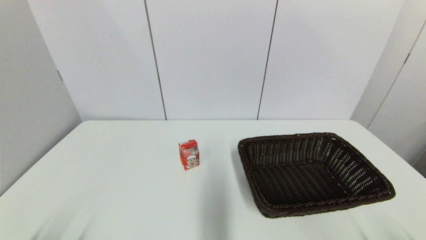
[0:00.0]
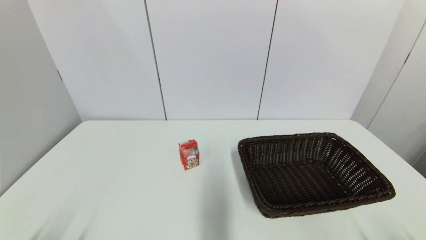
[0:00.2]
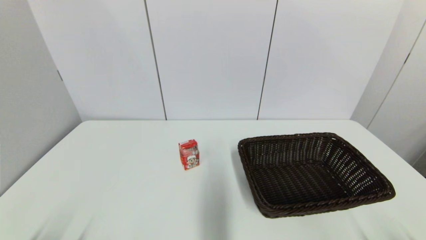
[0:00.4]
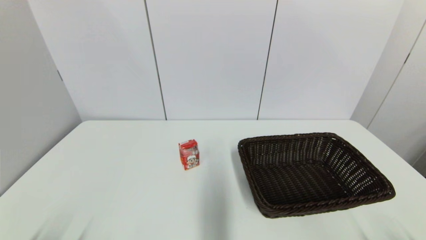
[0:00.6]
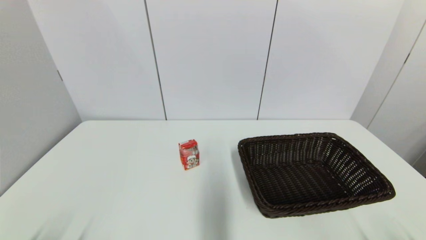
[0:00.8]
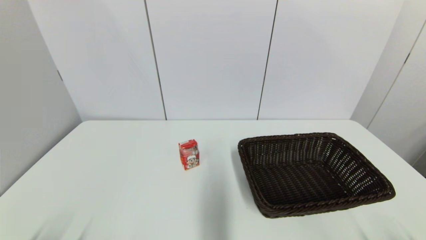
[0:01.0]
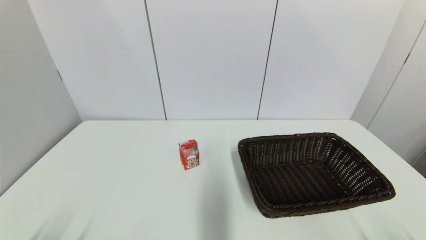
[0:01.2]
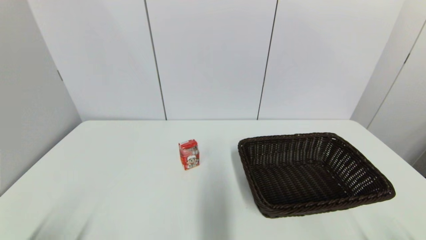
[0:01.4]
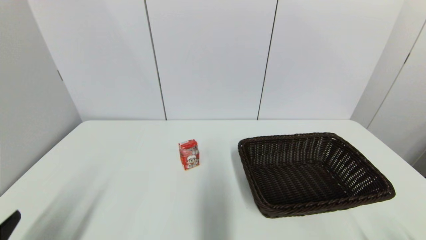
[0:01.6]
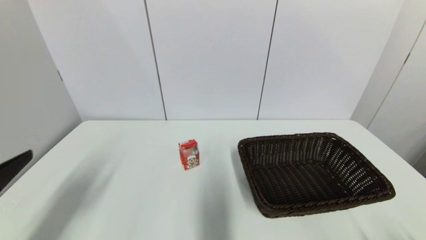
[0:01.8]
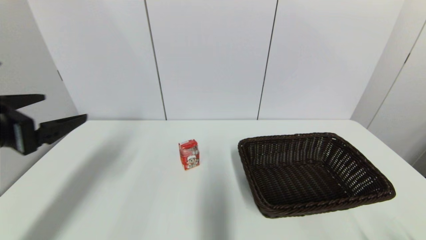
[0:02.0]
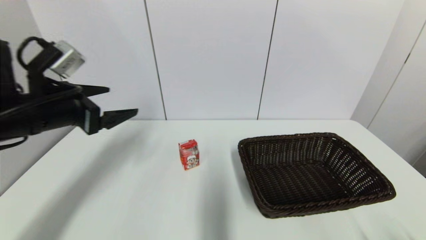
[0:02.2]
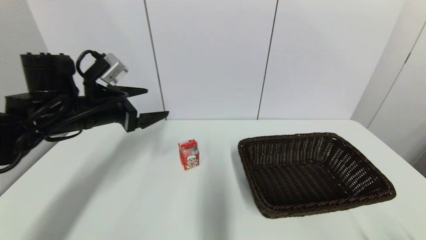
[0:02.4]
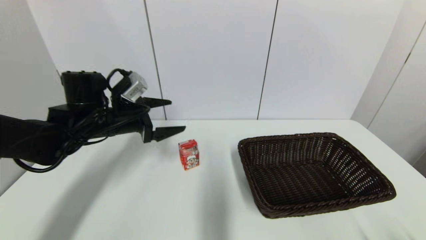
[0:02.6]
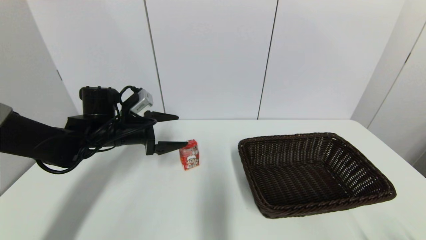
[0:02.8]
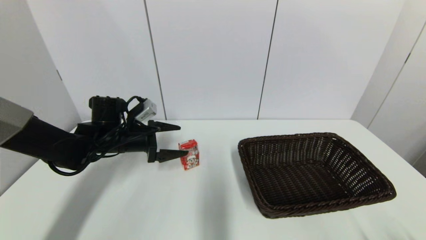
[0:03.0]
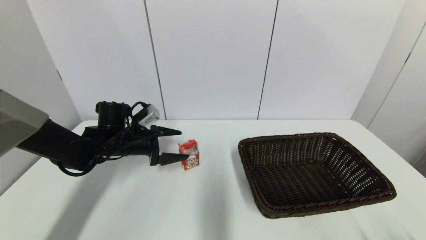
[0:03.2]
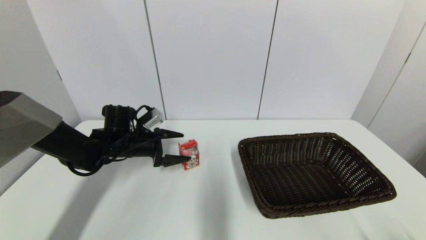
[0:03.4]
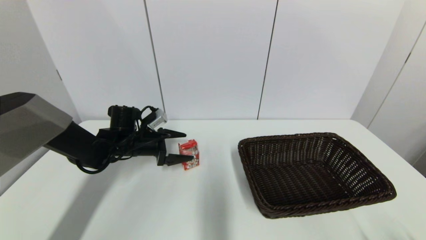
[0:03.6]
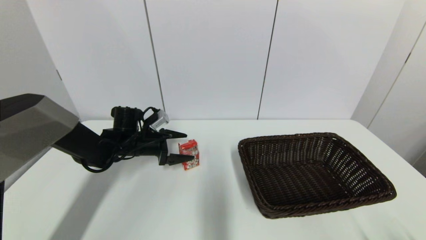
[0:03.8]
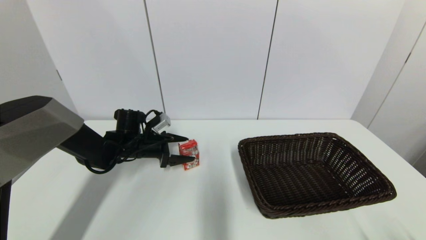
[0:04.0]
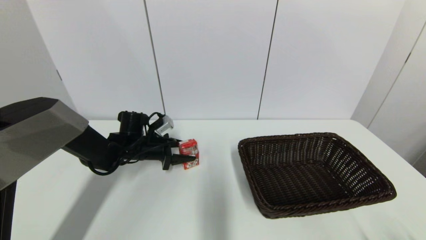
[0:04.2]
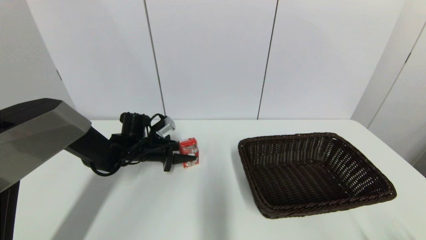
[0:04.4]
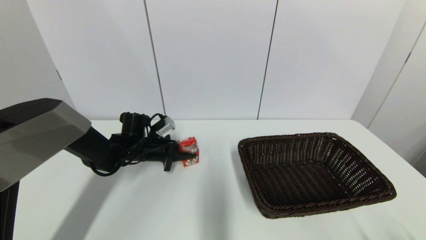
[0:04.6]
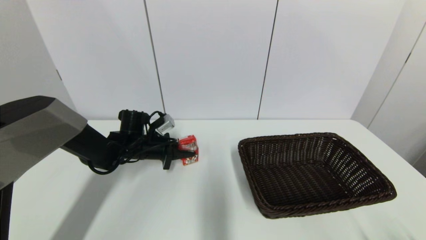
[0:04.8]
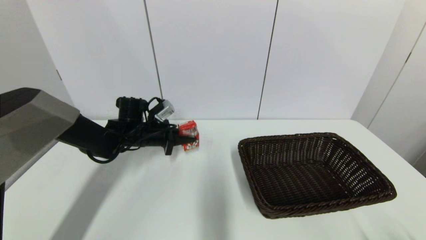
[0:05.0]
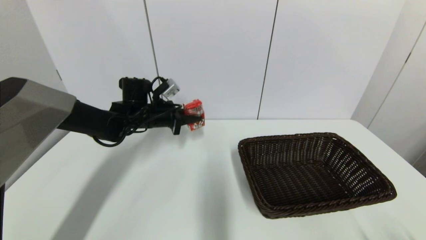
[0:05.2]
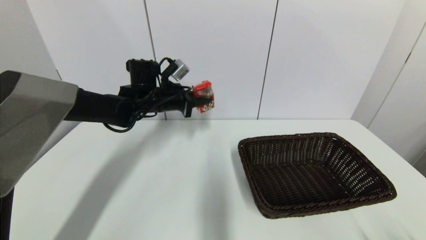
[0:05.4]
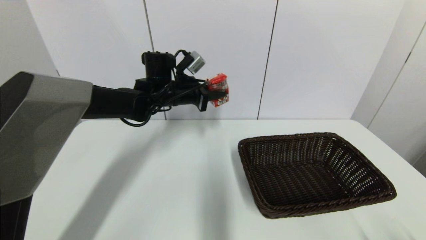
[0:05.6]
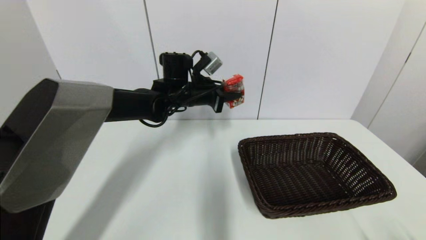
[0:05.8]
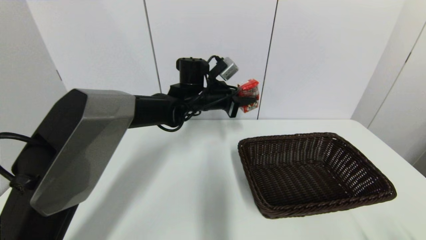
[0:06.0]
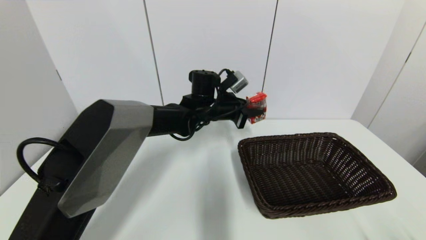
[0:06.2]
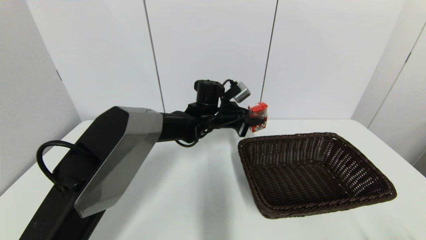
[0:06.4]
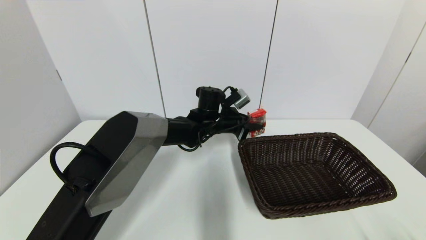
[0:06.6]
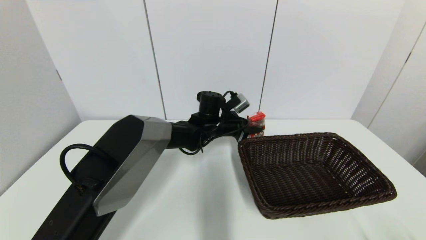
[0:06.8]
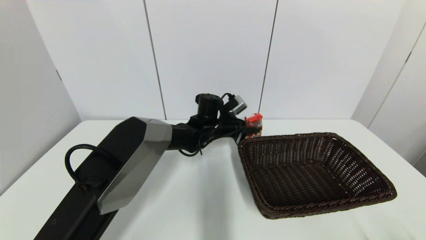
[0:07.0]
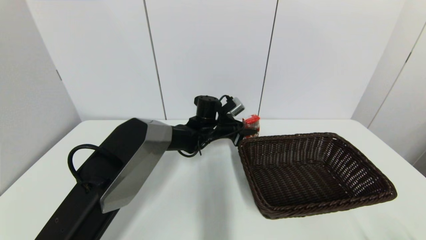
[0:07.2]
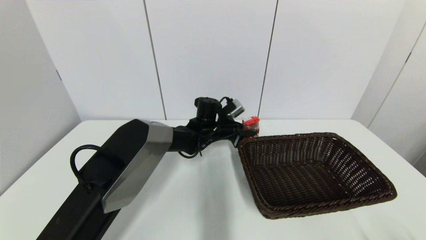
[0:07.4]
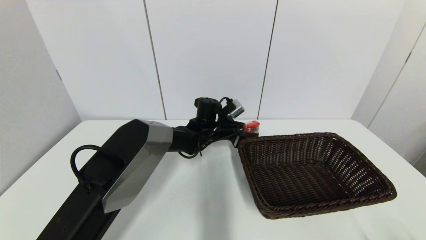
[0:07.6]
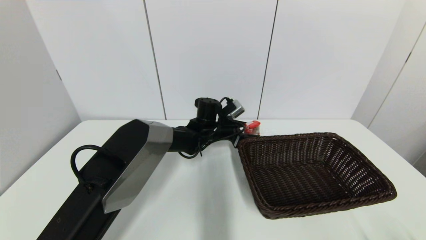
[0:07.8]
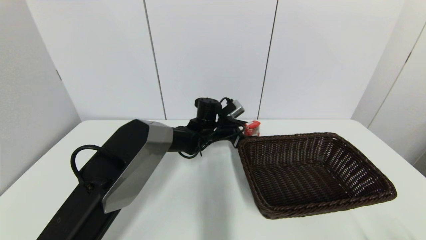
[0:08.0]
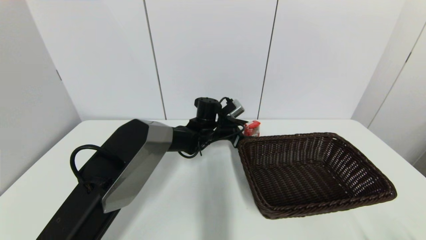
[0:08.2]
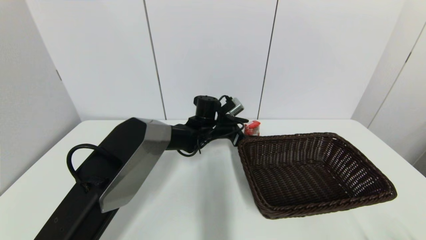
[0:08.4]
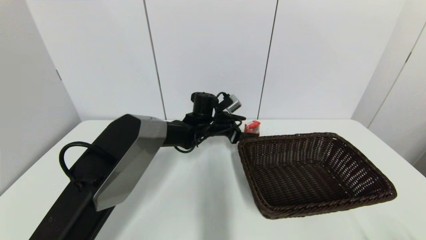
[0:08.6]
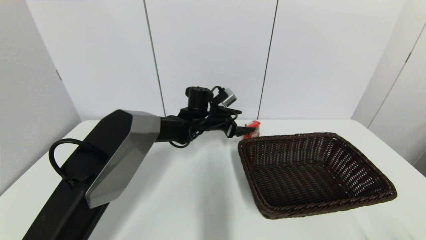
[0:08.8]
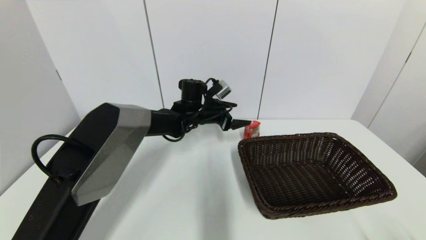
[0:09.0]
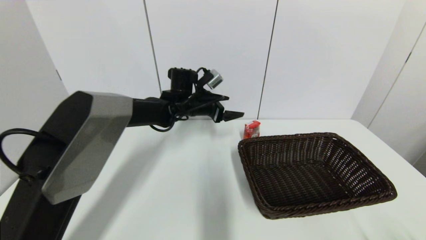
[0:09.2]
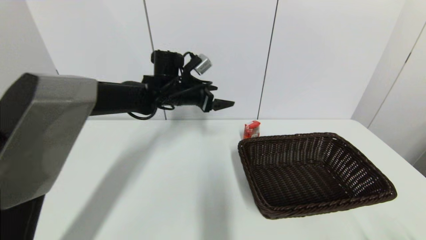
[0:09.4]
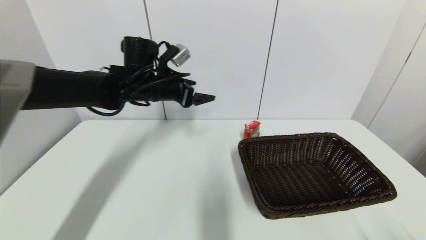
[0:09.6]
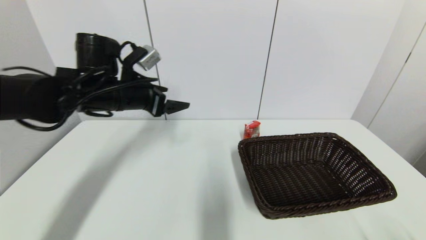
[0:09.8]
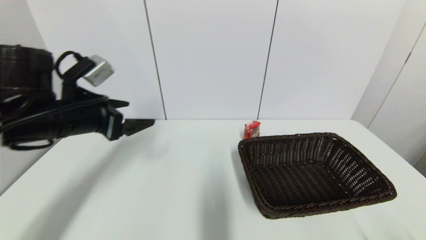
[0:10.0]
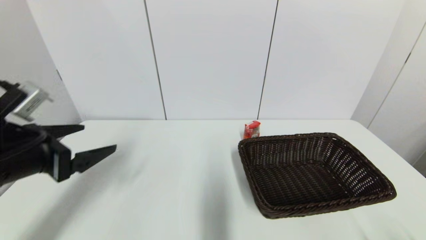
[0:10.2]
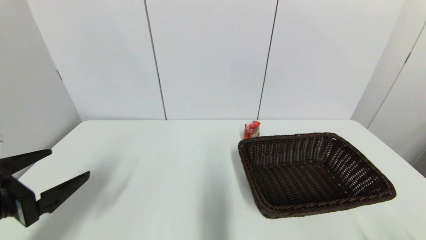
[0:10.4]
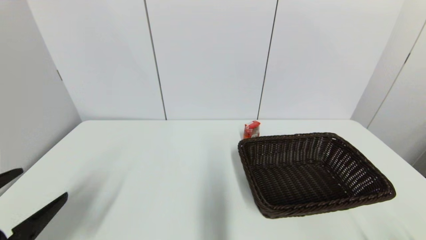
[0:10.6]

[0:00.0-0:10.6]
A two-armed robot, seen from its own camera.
Step, 0:01.6 to 0:04.8: Grasp the wangzai milk with left gripper.
Step, 0:05.0 to 0:07.6: Place the wangzai milk on the table with left gripper.
0:00.0 to 0:01.6: The left gripper travels upward by approximately 10 cm.
0:01.6 to 0:03.0: The left gripper heads forward, covering some 30 cm.
0:03.0 to 0:04.6: The left gripper heads downward, covering approximately 5 cm, and closes.
0:04.6 to 0:06.0: The left gripper is displaced to the right and upward by roughly 20 cm.
0:06.0 to 0:07.6: The left gripper goes approximately 10 cm downward.
0:07.6 to 0:09.0: The left gripper moves upward, some 5 cm, and opens its fingers.
0:09.0 to 0:10.6: The left gripper moves backward and to the left, roughly 50 cm.

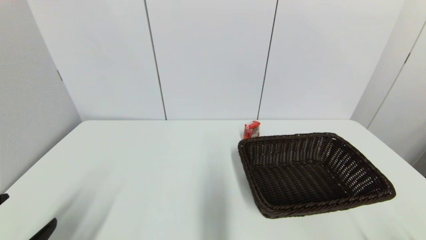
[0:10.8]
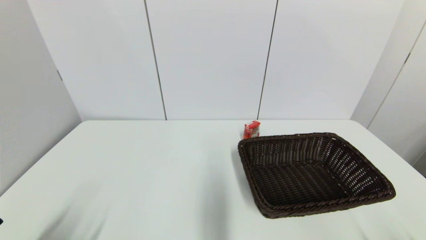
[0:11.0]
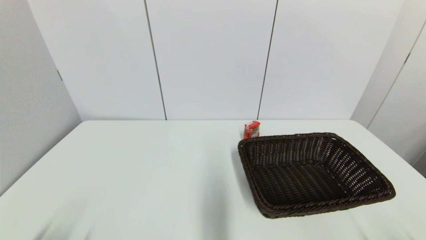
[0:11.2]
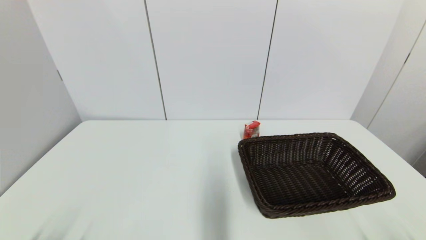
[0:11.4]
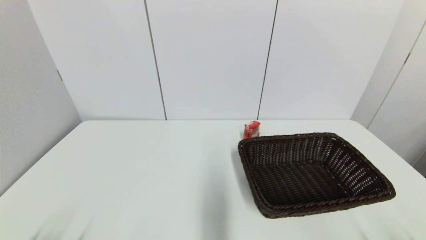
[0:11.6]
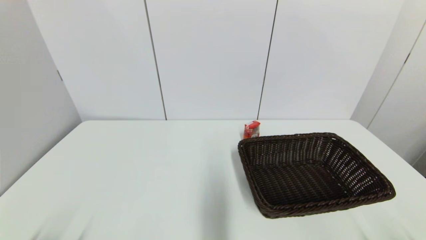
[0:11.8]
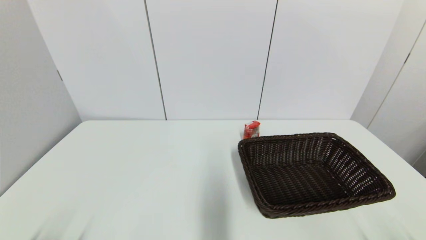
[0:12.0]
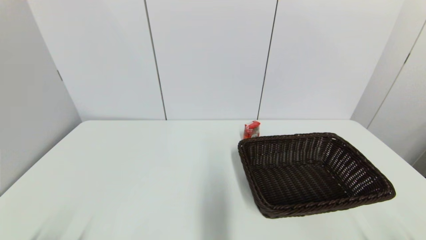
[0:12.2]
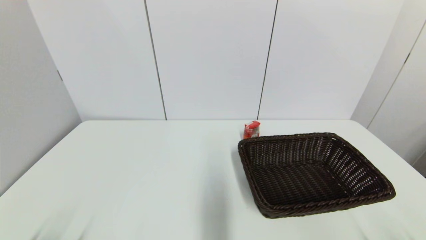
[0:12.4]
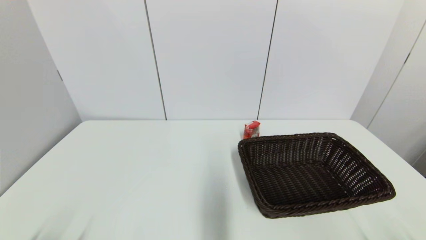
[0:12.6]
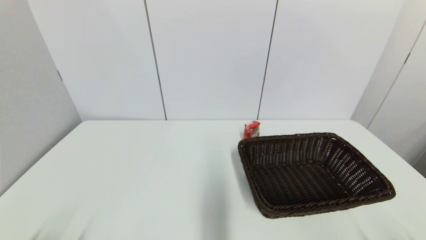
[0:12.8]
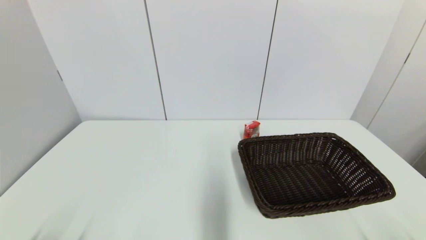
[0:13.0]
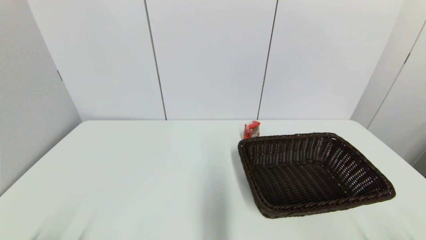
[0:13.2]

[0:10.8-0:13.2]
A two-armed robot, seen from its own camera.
0:10.8 to 0:12.0: The left gripper travels downward by approximately 5 cm.
0:12.0 to 0:13.2: Neither gripper changes place.

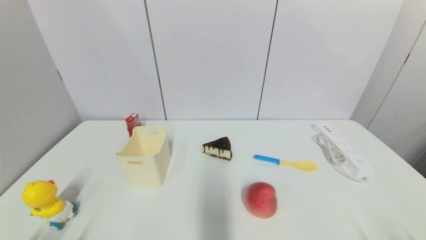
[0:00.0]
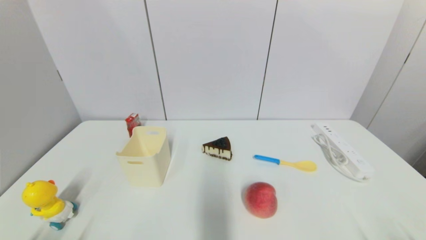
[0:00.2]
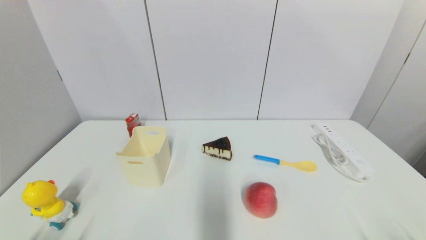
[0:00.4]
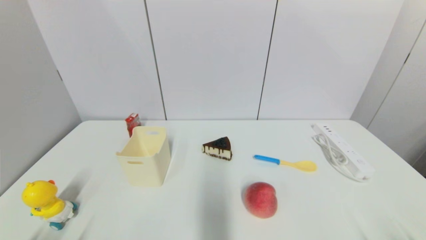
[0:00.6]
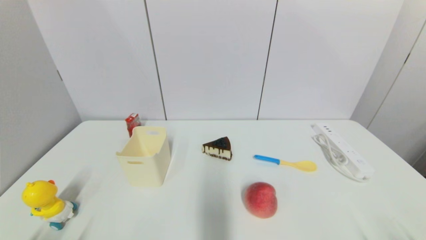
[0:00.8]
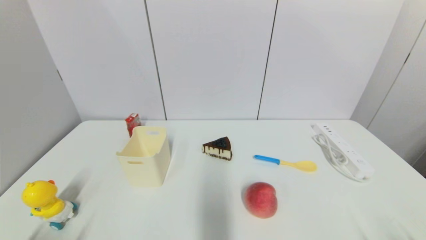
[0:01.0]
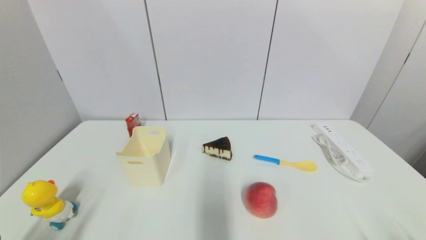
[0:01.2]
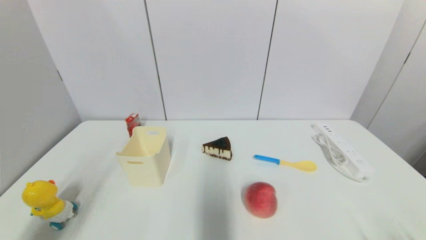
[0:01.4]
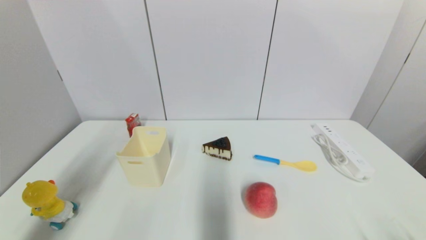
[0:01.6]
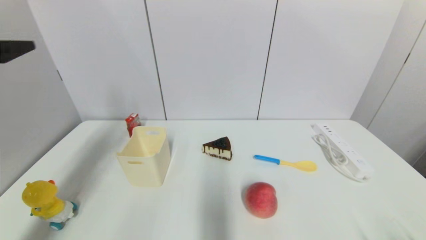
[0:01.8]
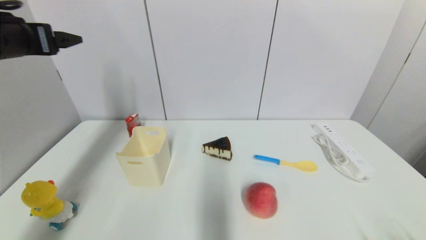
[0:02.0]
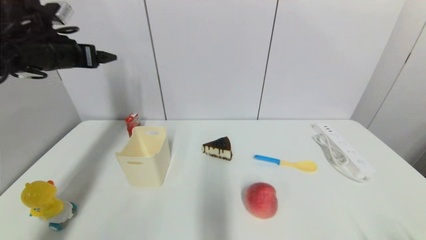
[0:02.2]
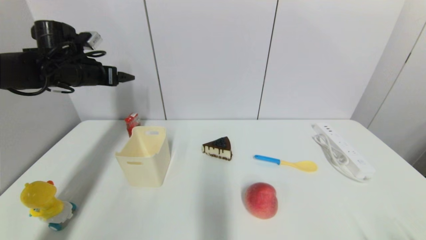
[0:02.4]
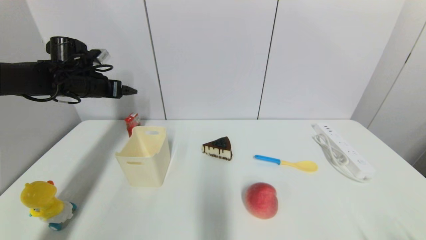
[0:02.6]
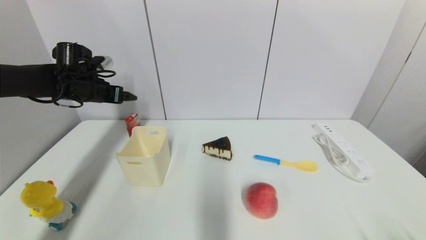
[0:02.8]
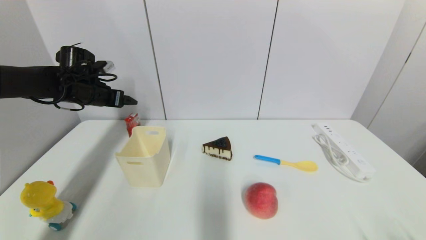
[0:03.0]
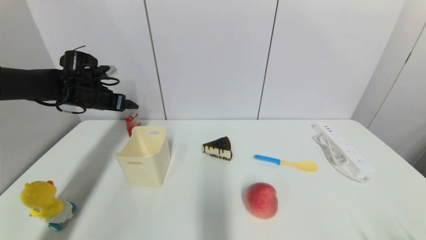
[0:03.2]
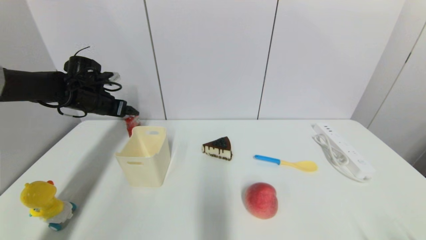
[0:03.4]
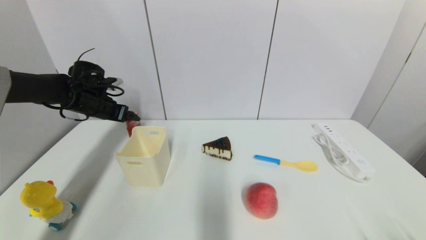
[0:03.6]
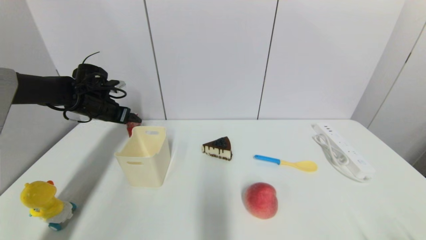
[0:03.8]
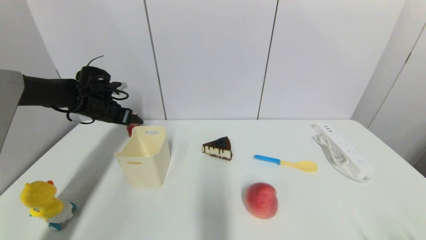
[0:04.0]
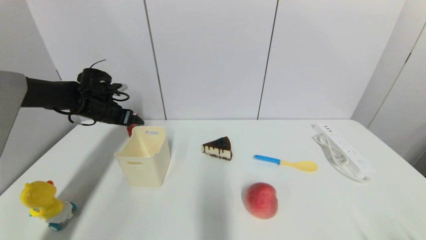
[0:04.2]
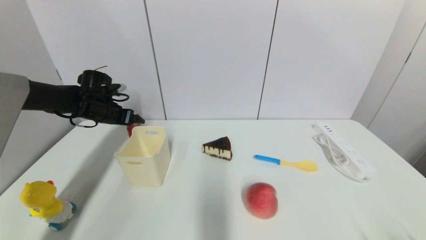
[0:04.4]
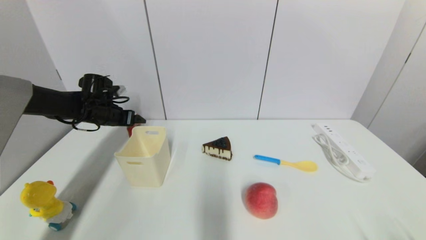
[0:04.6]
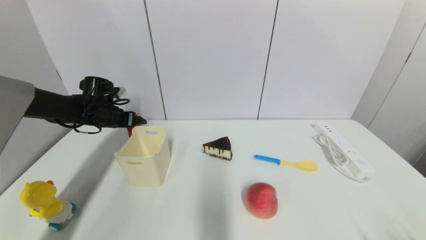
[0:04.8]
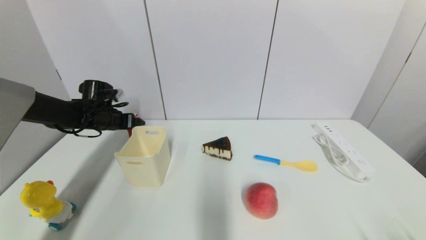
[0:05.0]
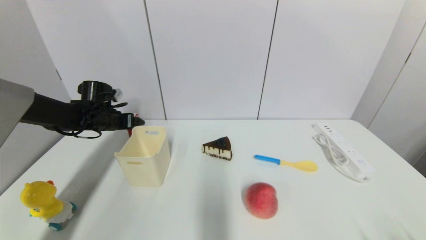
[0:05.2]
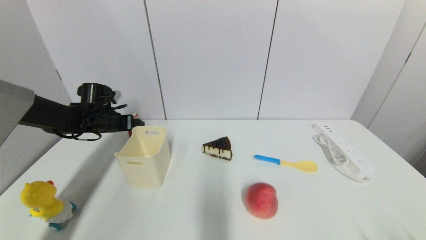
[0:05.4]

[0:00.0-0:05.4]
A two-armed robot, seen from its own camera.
0:00.0 to 0:01.4: The left gripper is displaced upward by about 15 cm.
0:01.4 to 0:02.8: The left gripper is displaced forward by roughly 40 cm.
0:02.8 to 0:04.0: The left gripper moves downward, approximately 5 cm.
0:04.0 to 0:05.4: The grippers move only a little.
